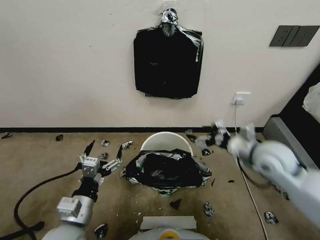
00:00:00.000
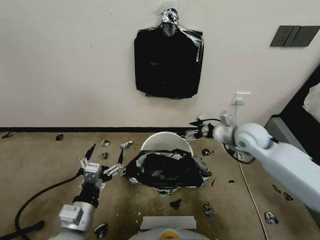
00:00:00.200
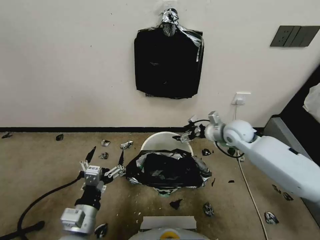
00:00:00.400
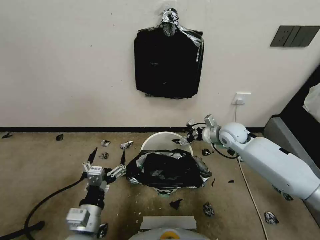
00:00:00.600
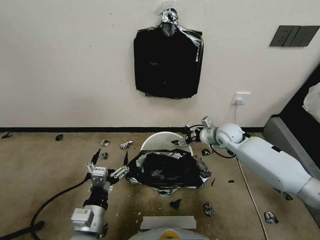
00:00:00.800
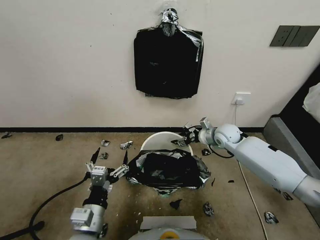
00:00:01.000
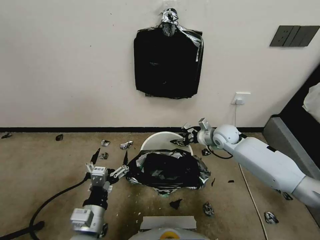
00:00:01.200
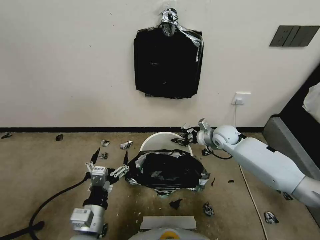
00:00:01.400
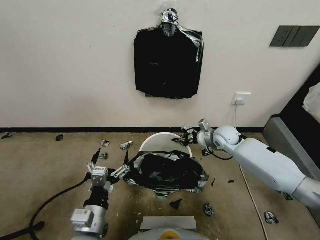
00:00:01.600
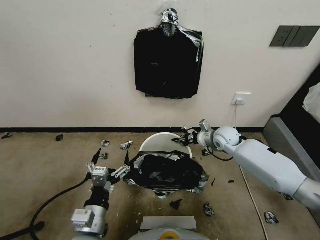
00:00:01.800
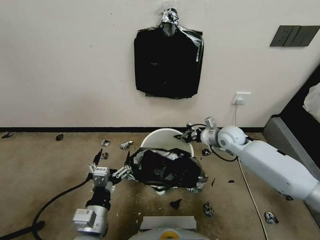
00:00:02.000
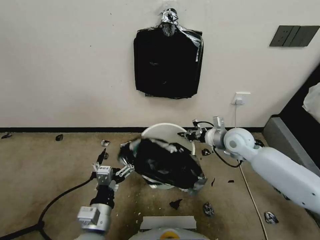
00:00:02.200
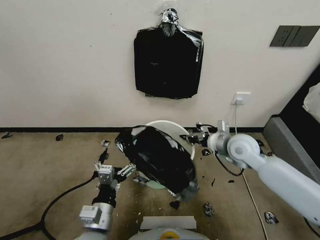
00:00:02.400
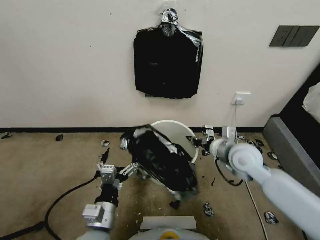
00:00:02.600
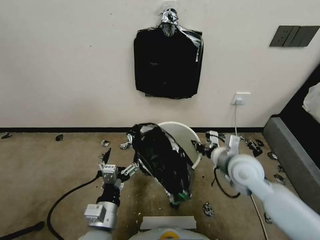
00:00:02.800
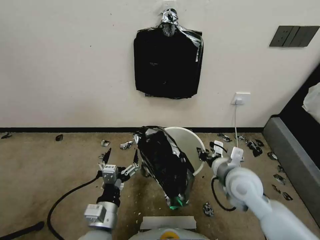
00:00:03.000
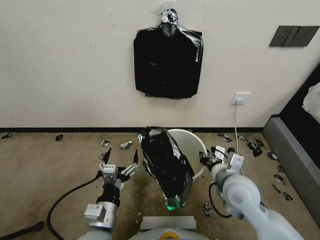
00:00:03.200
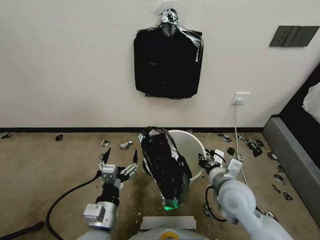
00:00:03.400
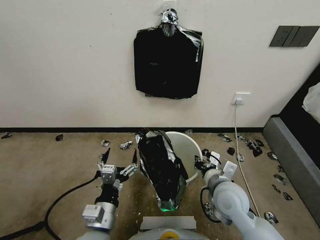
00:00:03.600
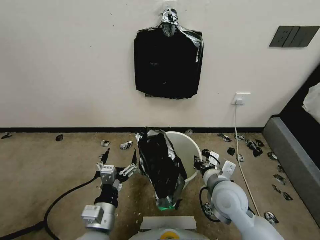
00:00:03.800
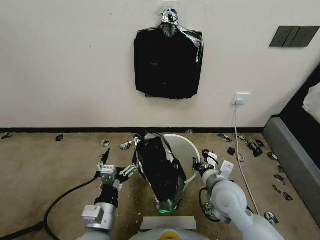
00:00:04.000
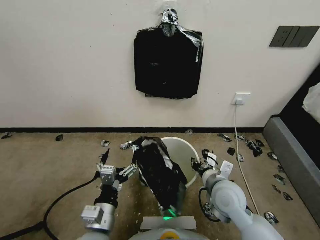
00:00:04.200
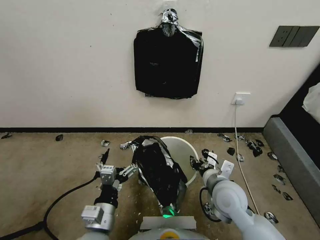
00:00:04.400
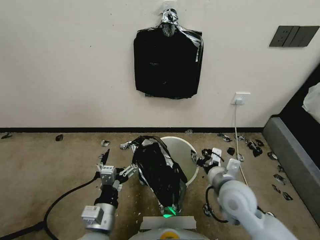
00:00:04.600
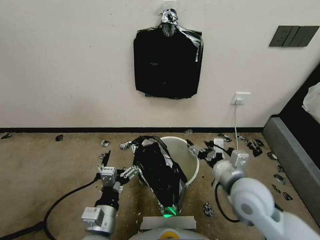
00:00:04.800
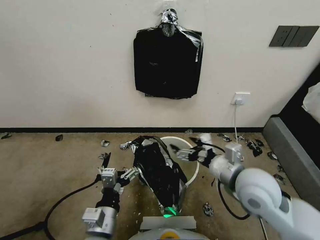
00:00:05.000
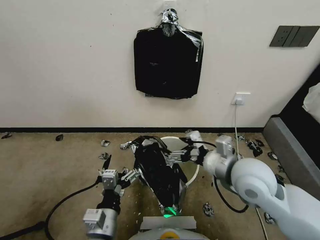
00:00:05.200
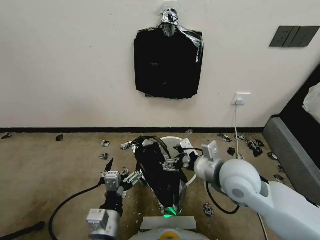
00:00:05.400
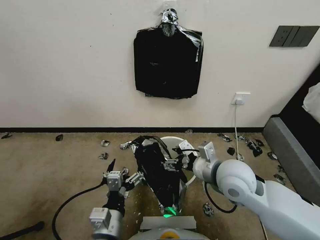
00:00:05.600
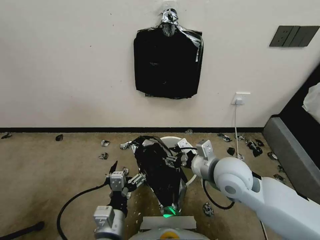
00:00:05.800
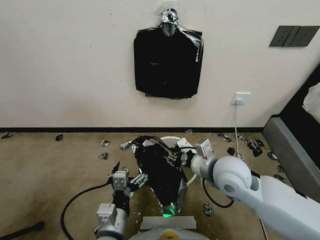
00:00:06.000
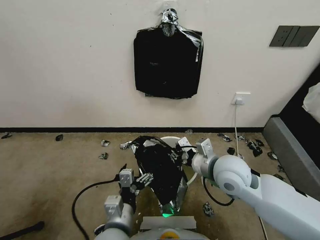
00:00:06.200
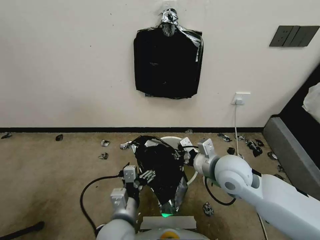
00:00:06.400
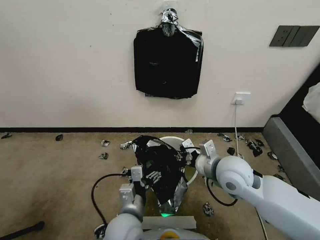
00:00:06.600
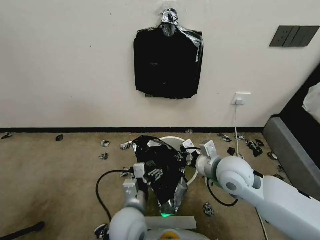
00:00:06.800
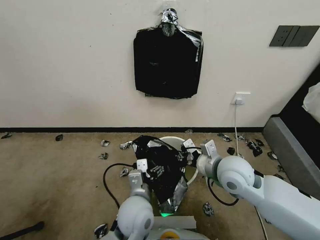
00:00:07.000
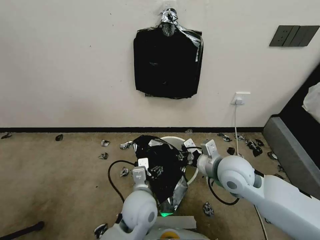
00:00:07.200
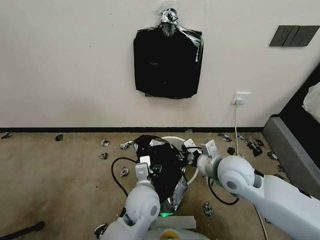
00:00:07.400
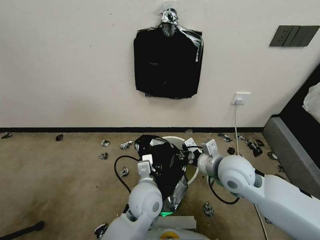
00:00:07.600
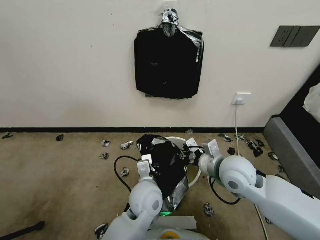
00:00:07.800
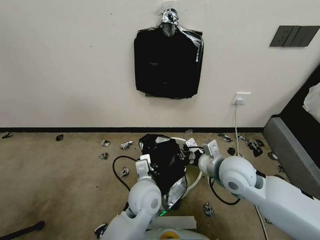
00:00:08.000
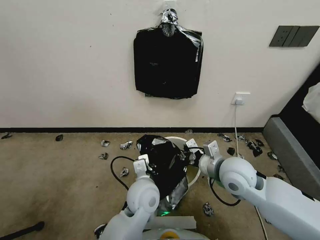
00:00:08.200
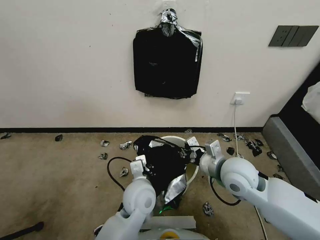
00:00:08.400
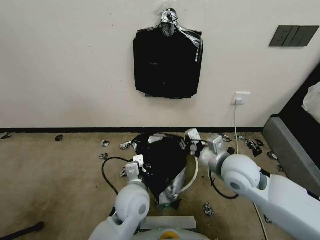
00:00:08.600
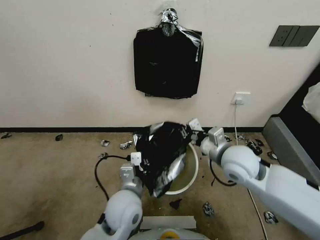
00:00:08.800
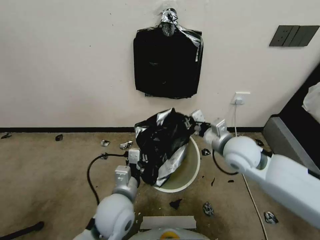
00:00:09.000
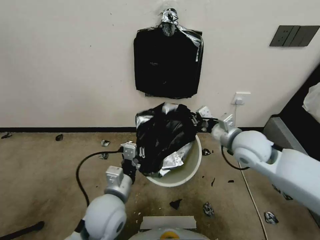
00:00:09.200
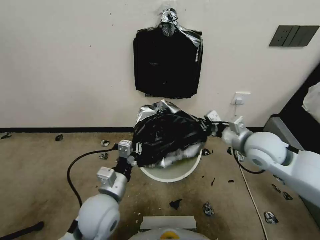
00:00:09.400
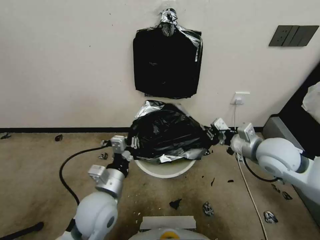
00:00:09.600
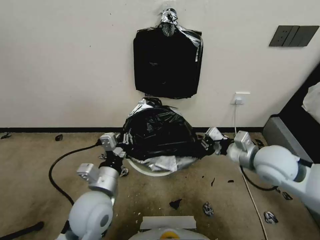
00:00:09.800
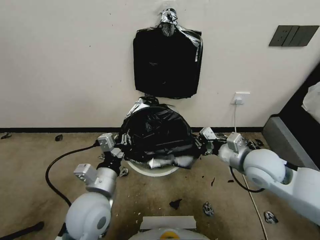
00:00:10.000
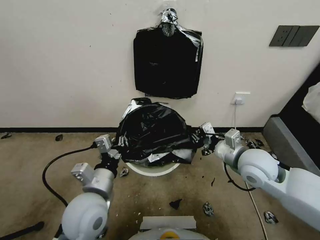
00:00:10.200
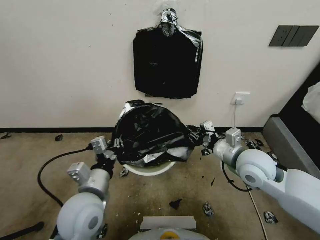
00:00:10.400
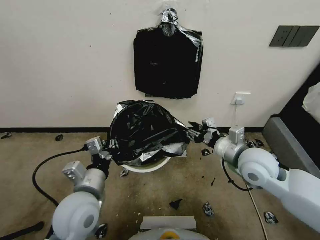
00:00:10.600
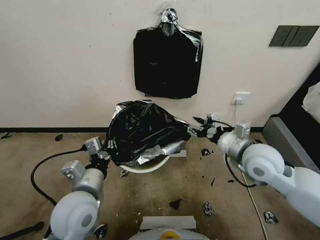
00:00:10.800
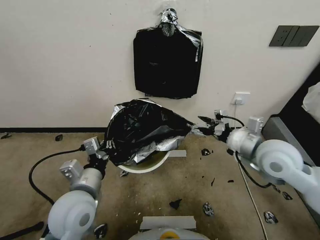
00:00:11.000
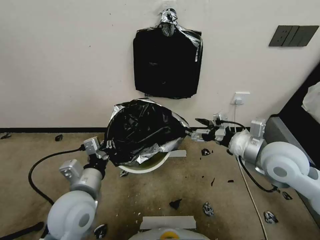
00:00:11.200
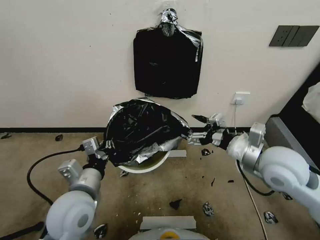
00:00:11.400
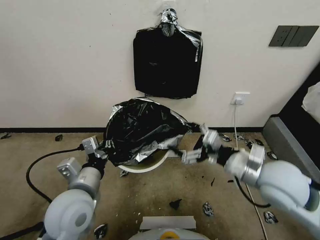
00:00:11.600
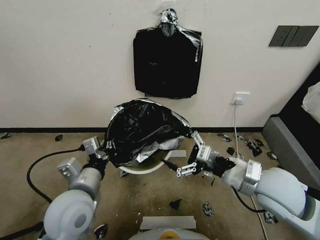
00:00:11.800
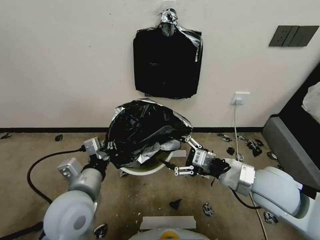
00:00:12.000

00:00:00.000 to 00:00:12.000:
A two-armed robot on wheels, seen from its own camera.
Task of the whole recording: Place a trash bag onto the trash bin.
00:00:00.000 to 00:00:01.600: The right gripper shifts roughly 20 cm forward and downward, and closes.
00:00:01.600 to 00:00:03.000: The right gripper heads backward, covering about 20 cm.
00:00:03.000 to 00:00:04.400: The right gripper moves some 5 cm, and opens its fingers.
00:00:04.400 to 00:00:06.000: The right gripper goes some 10 cm upward, and opens and closes again.
00:00:06.000 to 00:00:07.600: The left gripper shifts approximately 15 cm forward and to the right, and closes.
00:00:07.600 to 00:00:09.000: The left gripper moves to the left, about 10 cm, and closes up, while the right gripper ends up some 5 cm from where it was.
00:00:09.000 to 00:00:10.400: The left gripper travels to the left by some 5 cm.
00:00:10.400 to 00:00:12.000: The right gripper travels backward by about 5 cm, and opens up.

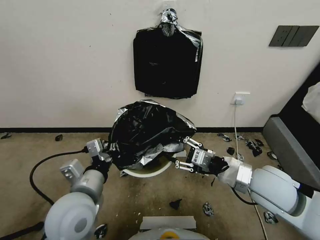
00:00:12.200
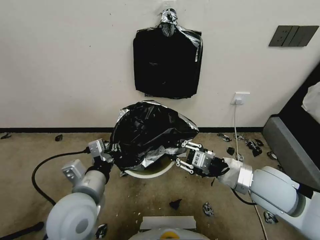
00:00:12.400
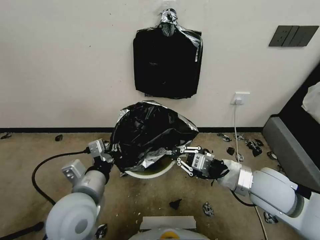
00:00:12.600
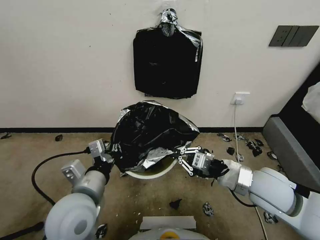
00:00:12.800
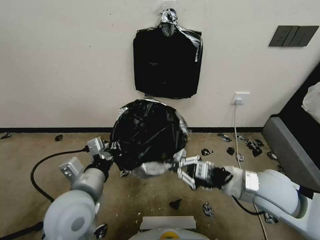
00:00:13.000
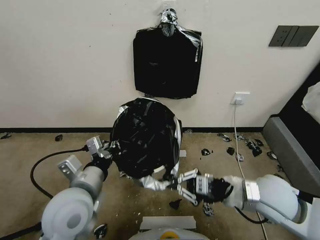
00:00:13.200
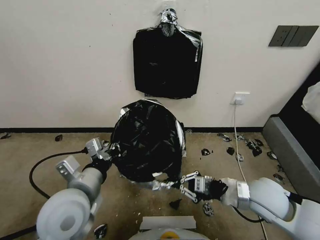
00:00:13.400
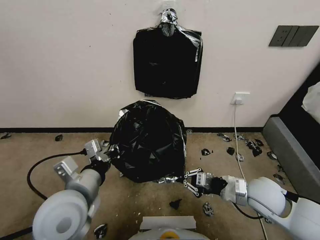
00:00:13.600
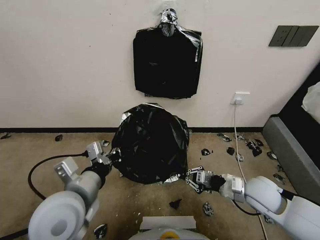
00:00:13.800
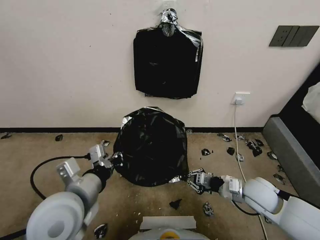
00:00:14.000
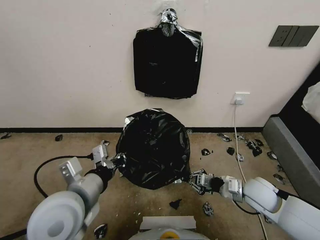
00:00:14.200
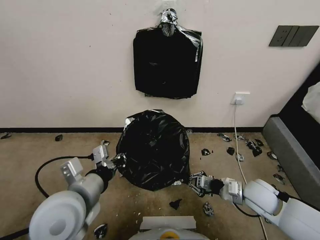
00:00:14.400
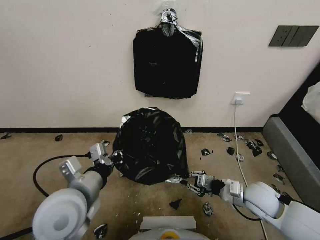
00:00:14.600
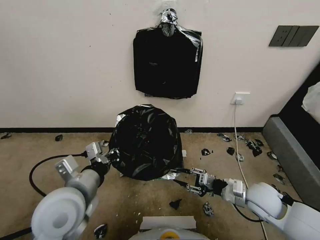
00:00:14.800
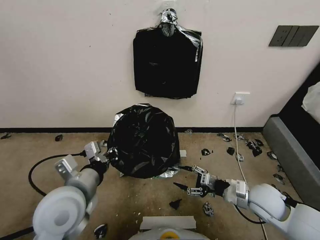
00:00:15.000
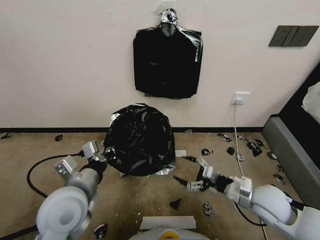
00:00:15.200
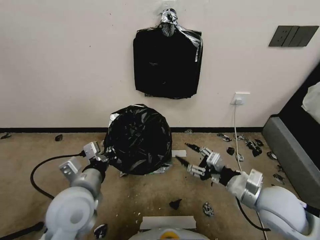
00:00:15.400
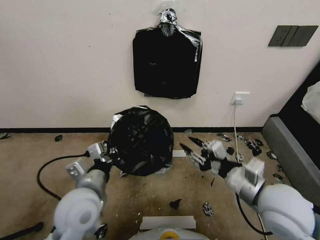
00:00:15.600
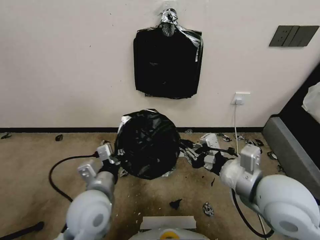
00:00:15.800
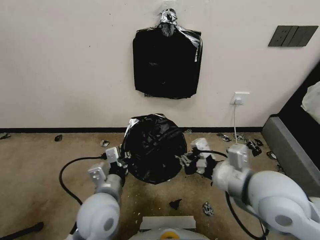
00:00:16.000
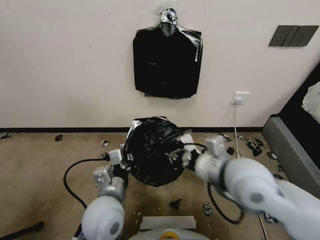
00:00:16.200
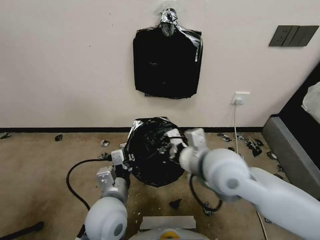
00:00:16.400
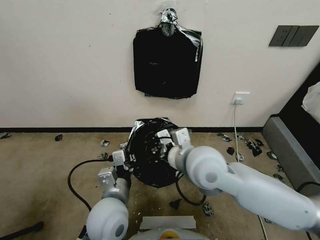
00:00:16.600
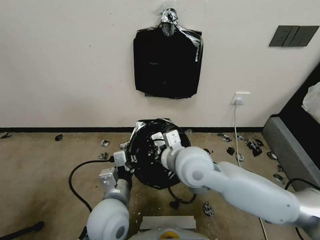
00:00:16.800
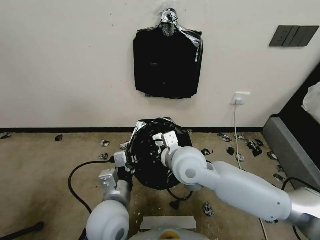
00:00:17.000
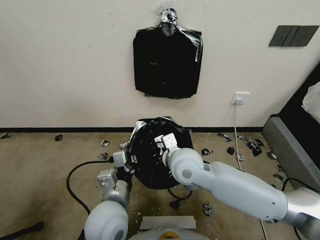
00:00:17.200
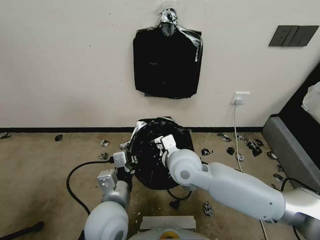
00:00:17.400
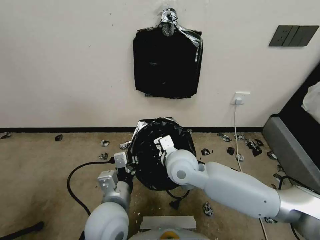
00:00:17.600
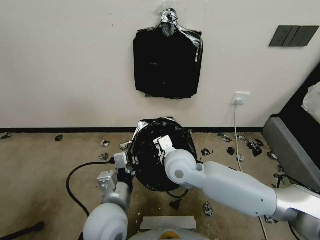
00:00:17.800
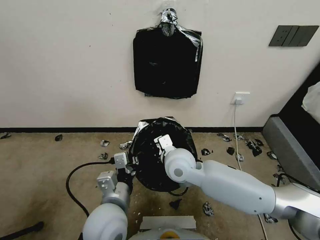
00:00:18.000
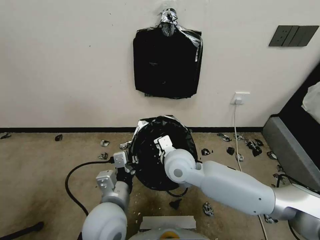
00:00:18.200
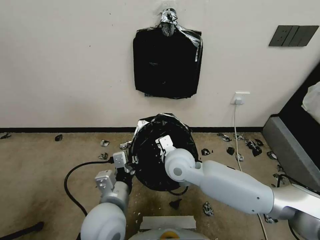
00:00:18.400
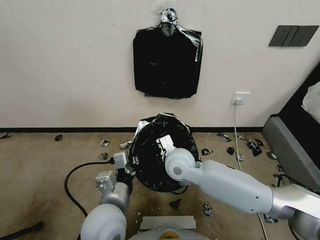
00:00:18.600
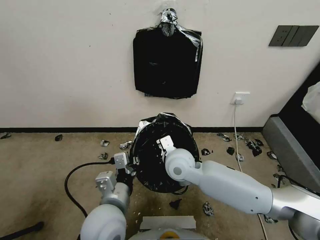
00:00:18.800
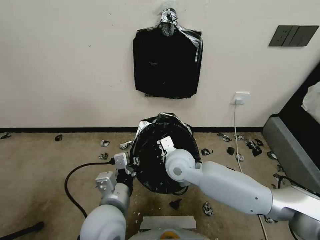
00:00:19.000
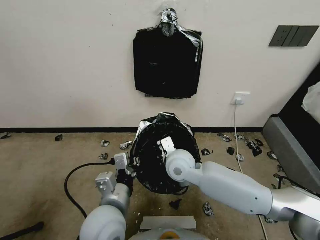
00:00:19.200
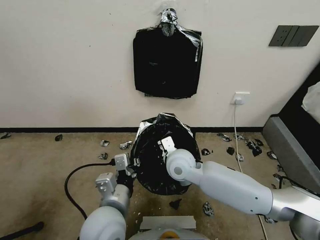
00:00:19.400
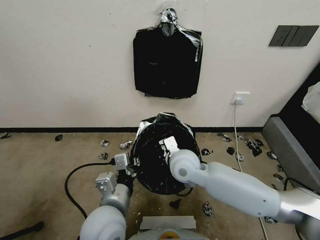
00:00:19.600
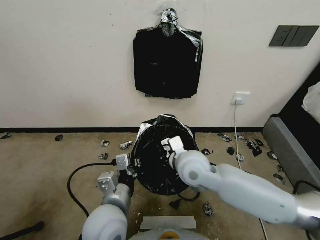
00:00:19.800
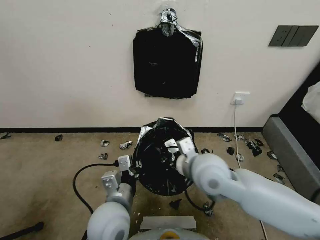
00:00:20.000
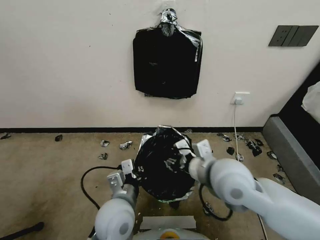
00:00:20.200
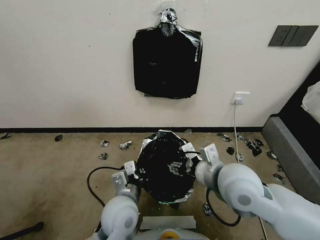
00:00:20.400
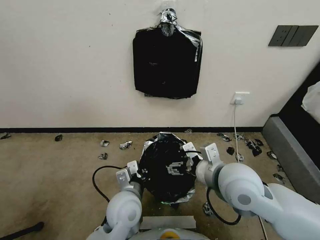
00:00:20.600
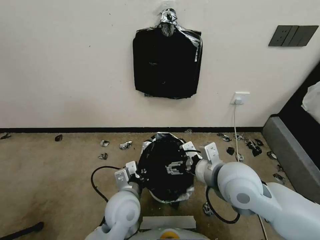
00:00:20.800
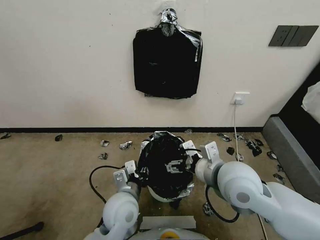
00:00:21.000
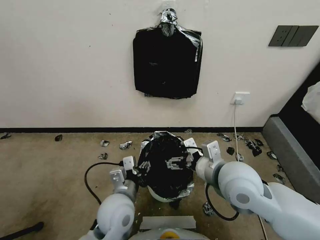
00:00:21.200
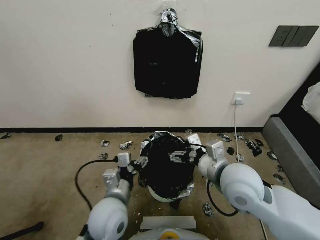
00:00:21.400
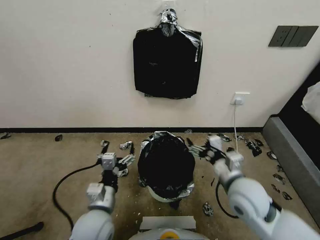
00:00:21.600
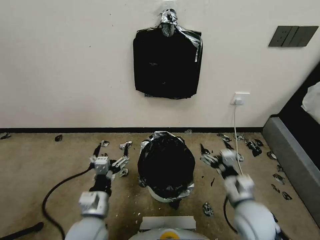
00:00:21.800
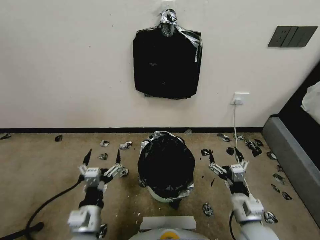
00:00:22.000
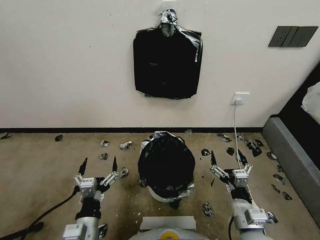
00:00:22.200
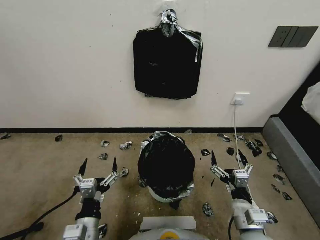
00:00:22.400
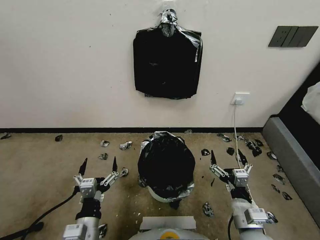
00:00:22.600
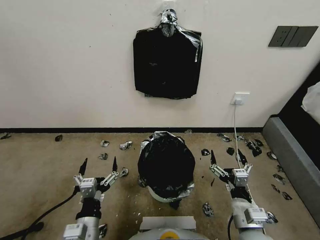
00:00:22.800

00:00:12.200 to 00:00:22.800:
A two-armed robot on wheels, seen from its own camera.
Task of the whole recording: Place a trash bag onto the trash bin.
00:00:12.200 to 00:00:13.800: The right gripper is displaced downward by about 10 cm, and closes its fingers.
00:00:13.800 to 00:00:15.200: The right gripper opens its fingers.
00:00:15.200 to 00:00:16.800: The left gripper moves to the right and downward, roughly 10 cm, while the right gripper goes about 25 cm to the left and upward, and closes.
00:00:16.800 to 00:00:18.200: The right gripper heads downward, covering some 10 cm.
00:00:18.200 to 00:00:19.800: The grippers stay close to where they were, moving slightly.
00:00:19.800 to 00:00:21.200: The right gripper is displaced to the right and backward by approximately 10 cm, and opens up; the left gripper moves downward, roughly 5 cm, and opens up.
00:00:21.200 to 00:00:22.800: The right gripper is displaced downward and backward by about 20 cm. Meanwhile the left gripper heads backward and to the left, covering some 15 cm, and opens up.
